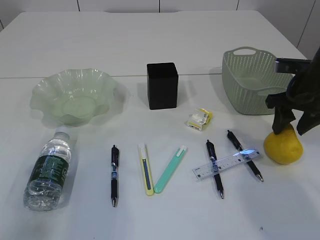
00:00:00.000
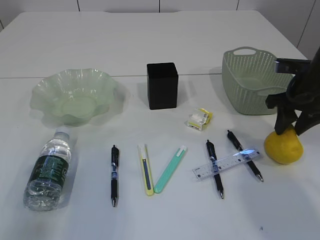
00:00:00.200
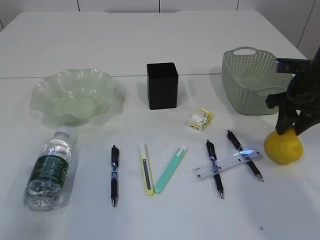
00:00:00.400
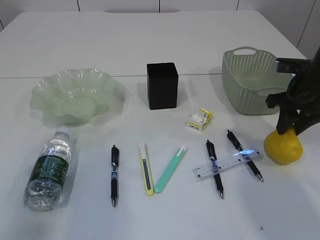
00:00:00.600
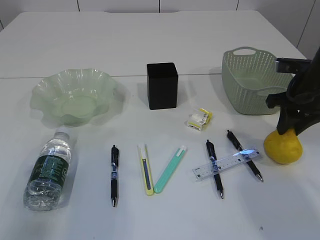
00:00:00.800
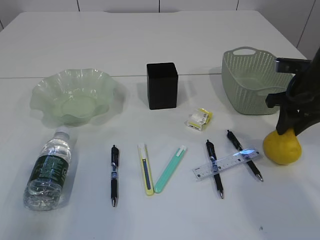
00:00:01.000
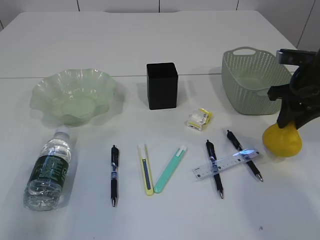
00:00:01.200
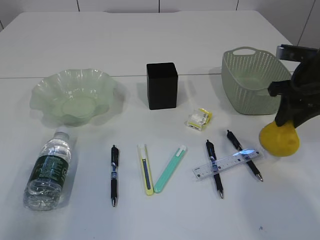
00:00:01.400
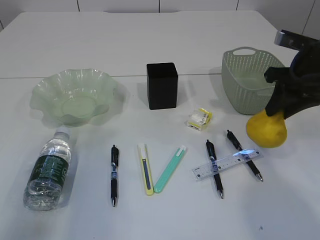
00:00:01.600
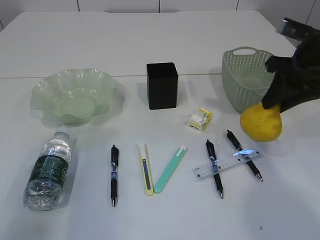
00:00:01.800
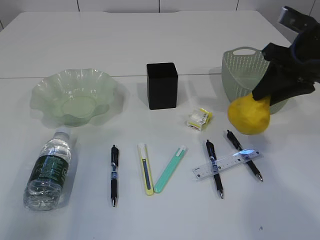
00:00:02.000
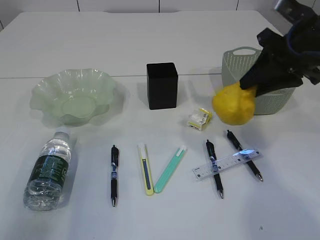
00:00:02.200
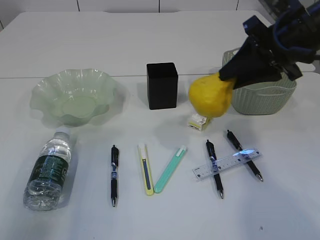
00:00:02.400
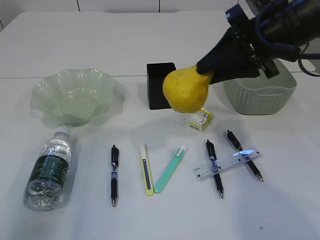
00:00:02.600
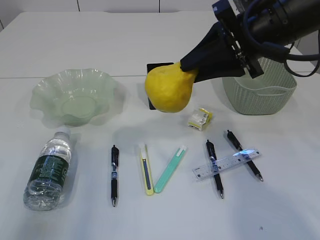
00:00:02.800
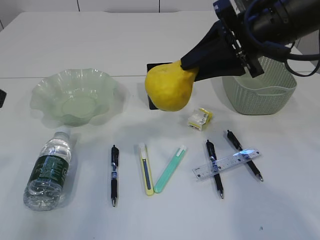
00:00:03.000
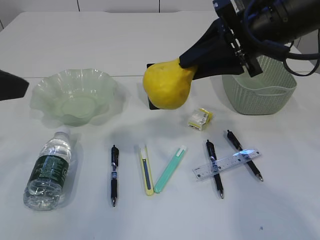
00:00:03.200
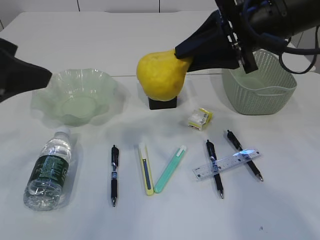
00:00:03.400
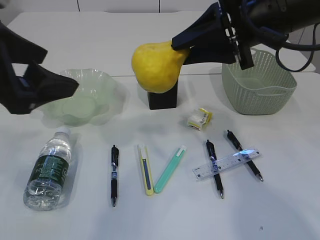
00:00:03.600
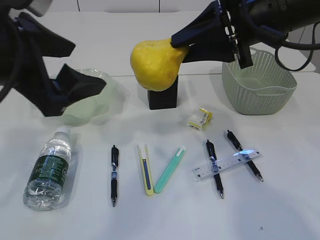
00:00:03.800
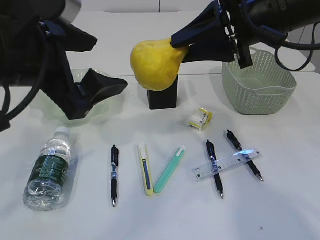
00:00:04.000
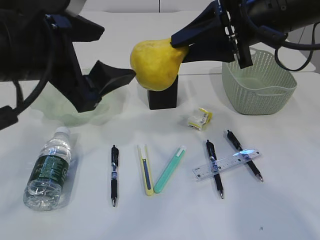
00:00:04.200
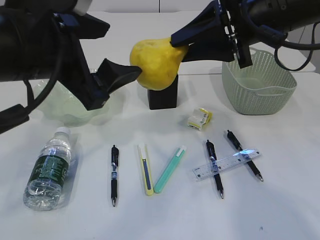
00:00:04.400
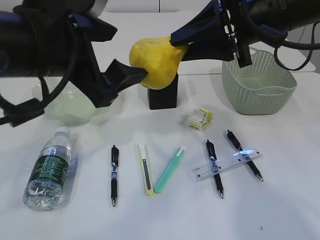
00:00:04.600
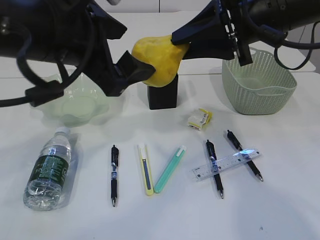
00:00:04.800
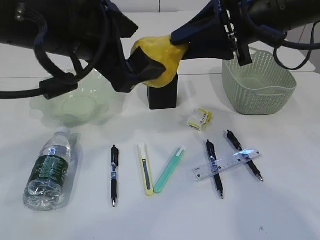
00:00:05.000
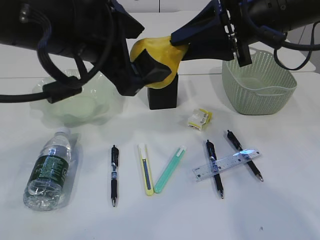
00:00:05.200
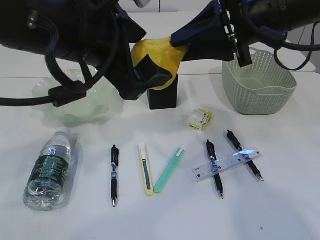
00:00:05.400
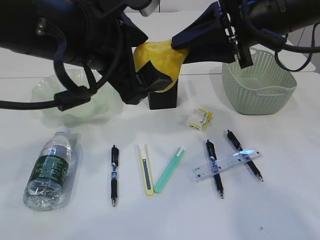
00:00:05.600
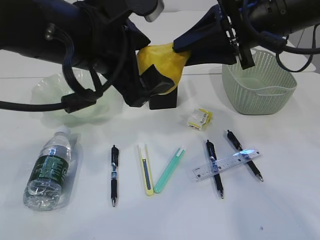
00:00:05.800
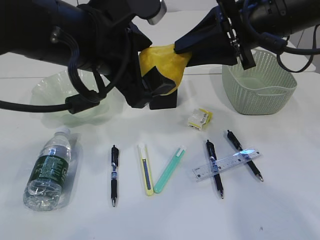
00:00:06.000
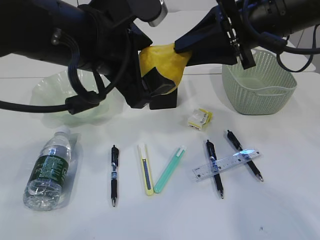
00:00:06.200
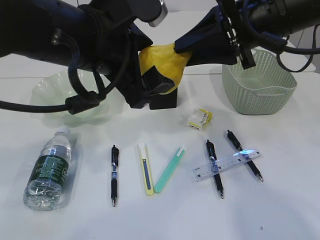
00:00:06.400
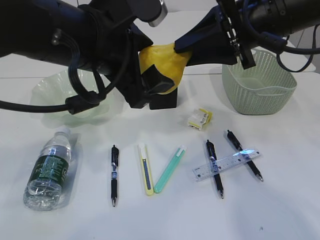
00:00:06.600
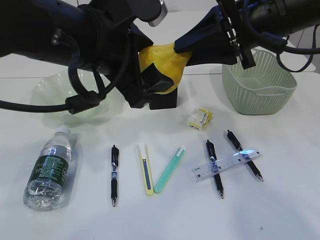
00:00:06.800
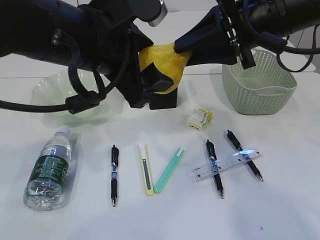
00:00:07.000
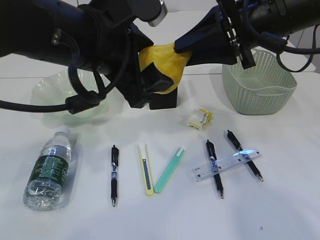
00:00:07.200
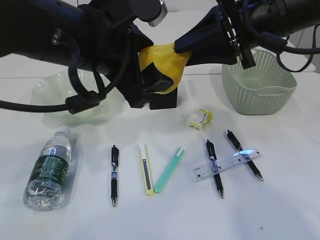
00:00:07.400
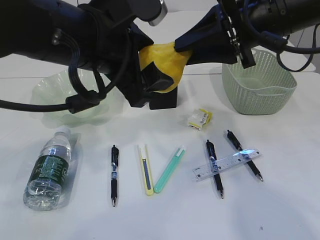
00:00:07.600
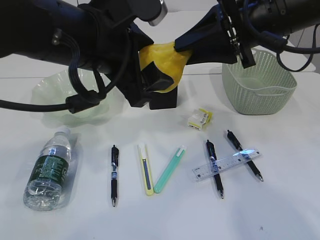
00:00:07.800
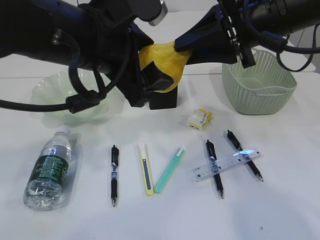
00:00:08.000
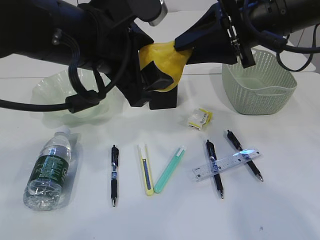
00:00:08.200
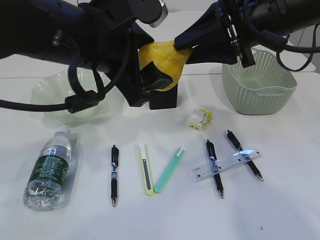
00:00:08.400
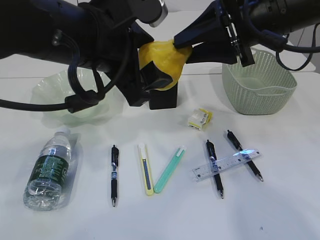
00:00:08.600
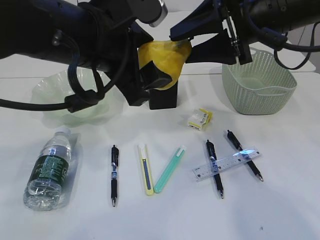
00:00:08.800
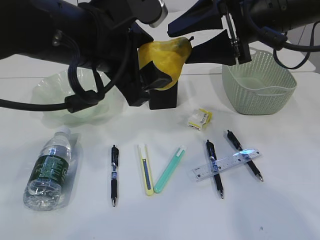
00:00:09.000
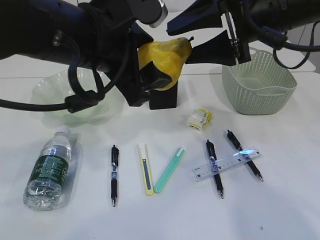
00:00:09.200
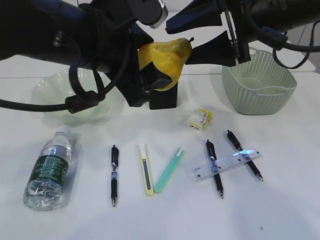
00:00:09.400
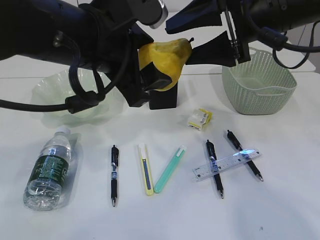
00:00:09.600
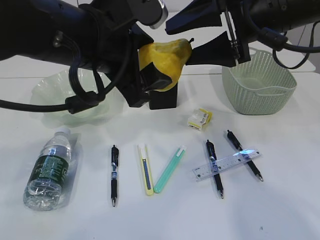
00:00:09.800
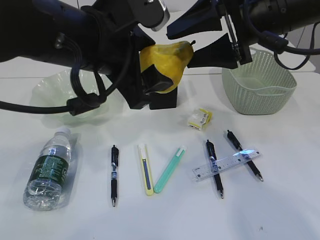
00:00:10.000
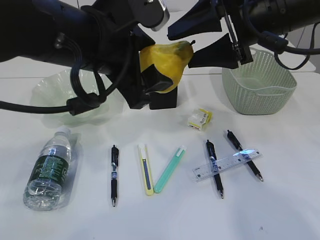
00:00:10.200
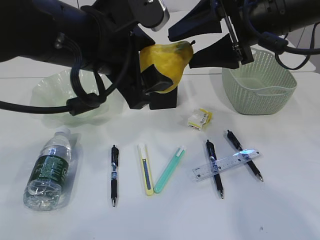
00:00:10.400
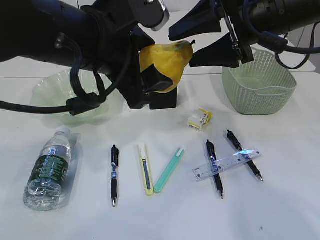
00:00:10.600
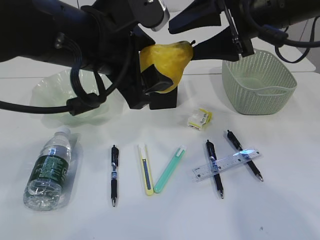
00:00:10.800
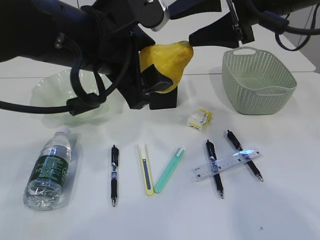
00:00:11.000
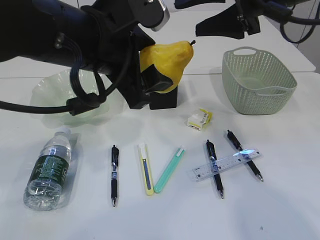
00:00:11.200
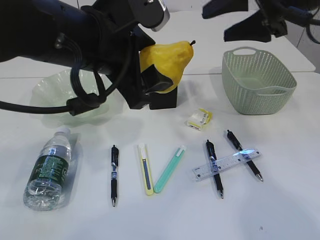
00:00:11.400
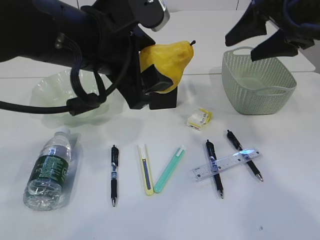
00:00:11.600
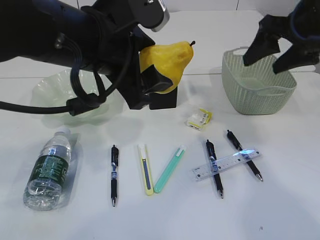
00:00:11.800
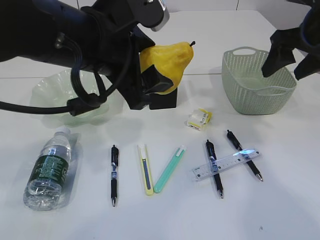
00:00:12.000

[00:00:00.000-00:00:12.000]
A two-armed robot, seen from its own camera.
Step, 00:00:02.200 to 00:00:11.800: Hand over the pear.
00:00:00.000 to 00:00:01.600: The right gripper travels upward by about 5 cm, and closes its fingers.
00:00:01.600 to 00:00:03.000: The right gripper travels to the left and upward by some 10 cm; the left gripper heads to the right, covering some 5 cm.
00:00:03.000 to 00:00:04.400: The left gripper shifts approximately 15 cm to the right.
00:00:04.400 to 00:00:06.000: The left gripper shifts about 5 cm to the right.
00:00:06.000 to 00:00:07.600: Both grippers stay put.
00:00:07.600 to 00:00:09.000: The right gripper opens up.
00:00:09.000 to 00:00:10.400: Neither gripper changes place.
00:00:10.400 to 00:00:12.000: The right gripper goes roughly 10 cm to the right.

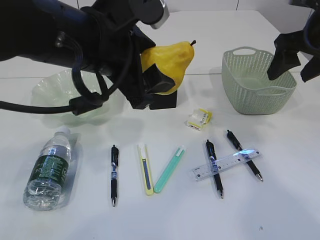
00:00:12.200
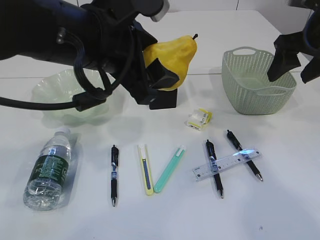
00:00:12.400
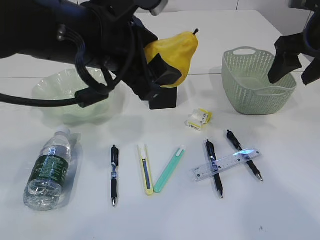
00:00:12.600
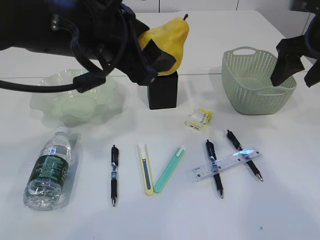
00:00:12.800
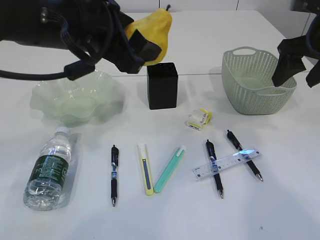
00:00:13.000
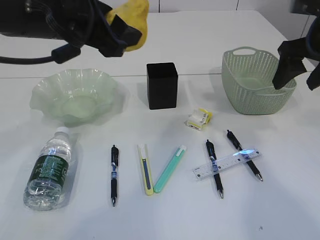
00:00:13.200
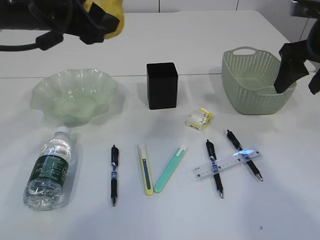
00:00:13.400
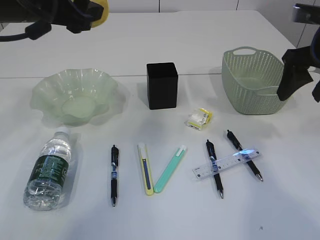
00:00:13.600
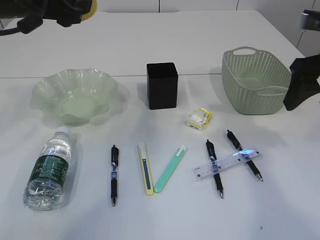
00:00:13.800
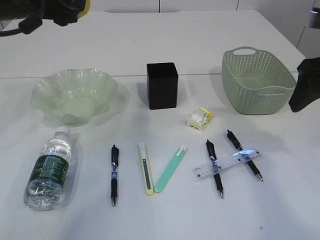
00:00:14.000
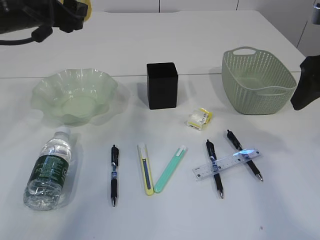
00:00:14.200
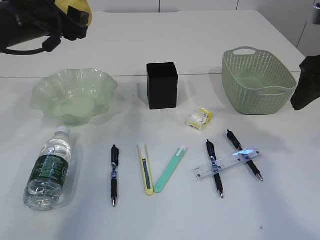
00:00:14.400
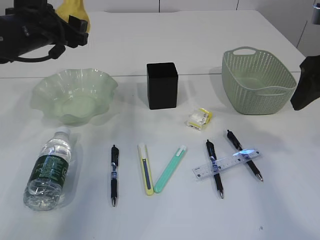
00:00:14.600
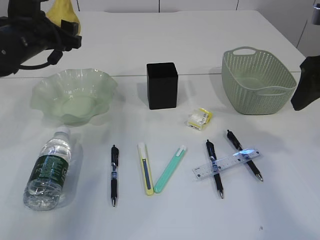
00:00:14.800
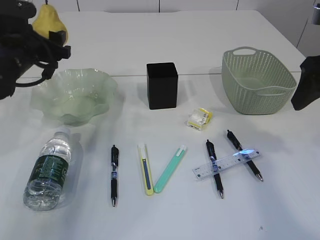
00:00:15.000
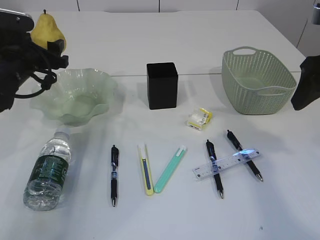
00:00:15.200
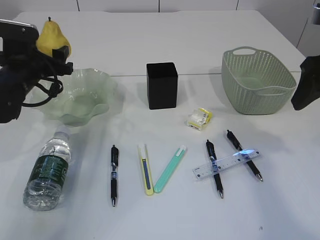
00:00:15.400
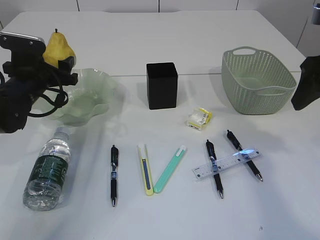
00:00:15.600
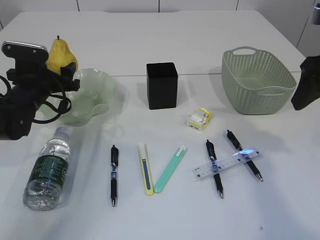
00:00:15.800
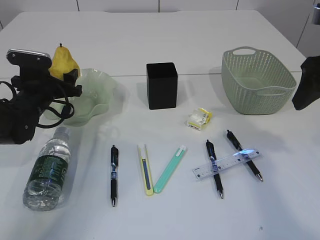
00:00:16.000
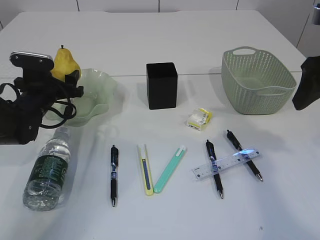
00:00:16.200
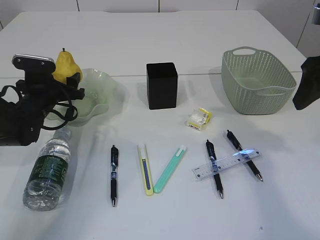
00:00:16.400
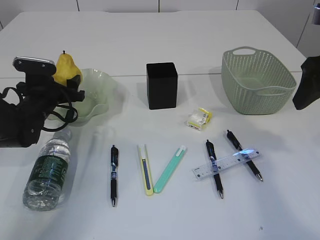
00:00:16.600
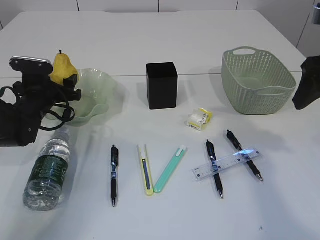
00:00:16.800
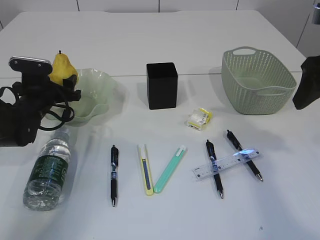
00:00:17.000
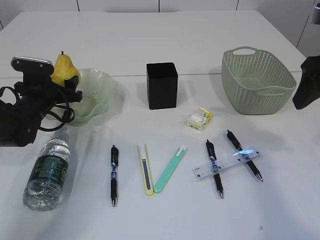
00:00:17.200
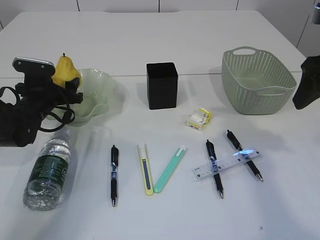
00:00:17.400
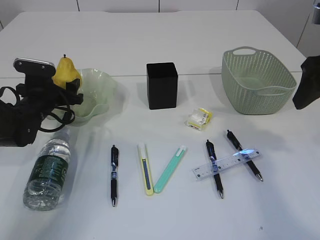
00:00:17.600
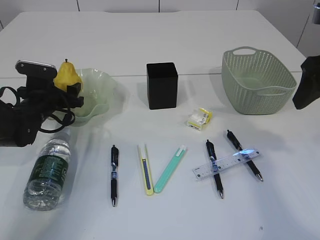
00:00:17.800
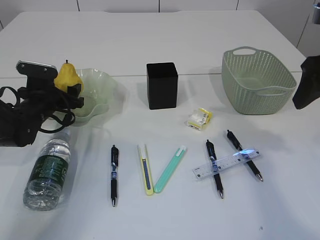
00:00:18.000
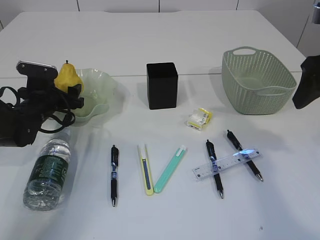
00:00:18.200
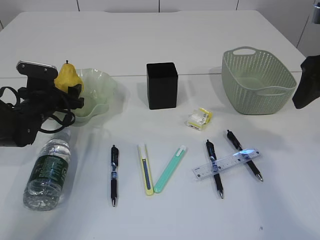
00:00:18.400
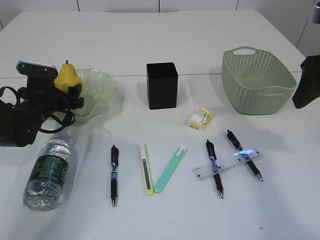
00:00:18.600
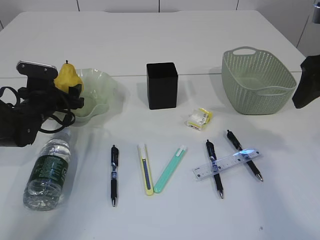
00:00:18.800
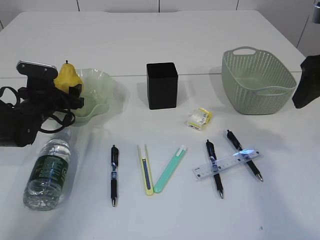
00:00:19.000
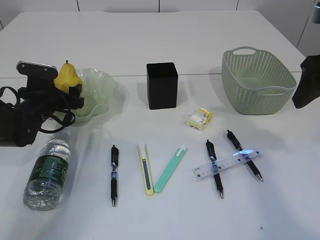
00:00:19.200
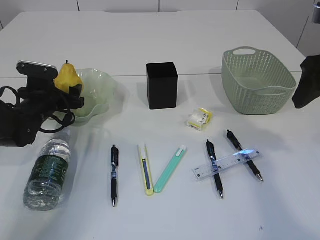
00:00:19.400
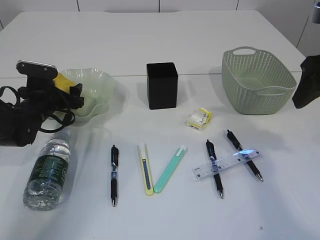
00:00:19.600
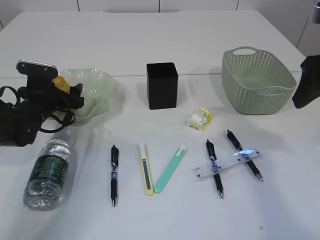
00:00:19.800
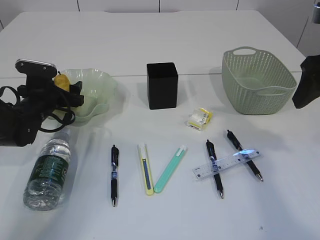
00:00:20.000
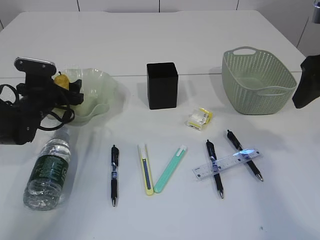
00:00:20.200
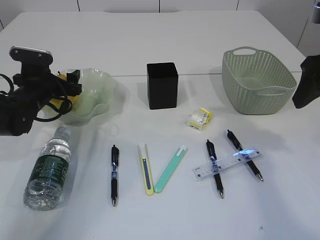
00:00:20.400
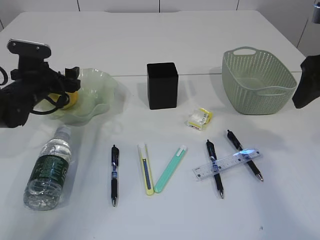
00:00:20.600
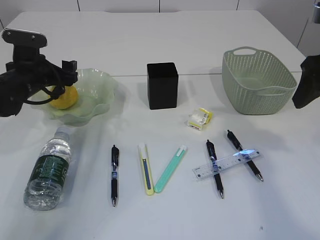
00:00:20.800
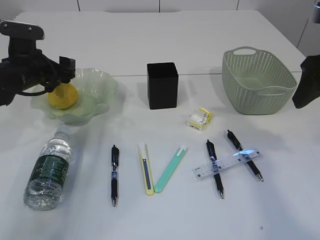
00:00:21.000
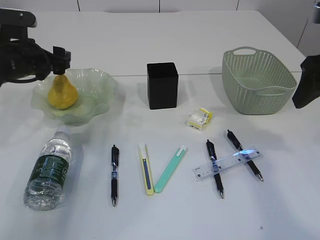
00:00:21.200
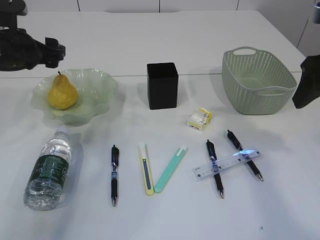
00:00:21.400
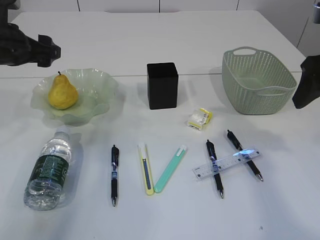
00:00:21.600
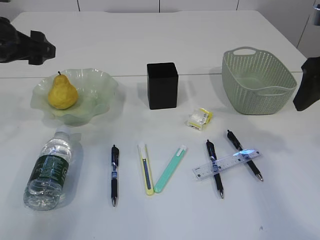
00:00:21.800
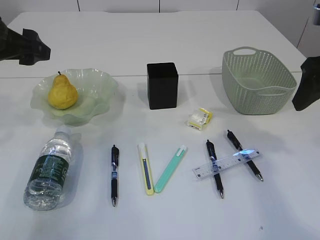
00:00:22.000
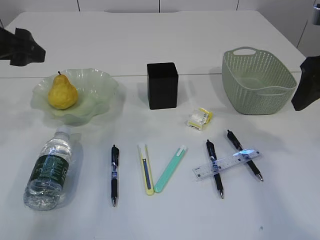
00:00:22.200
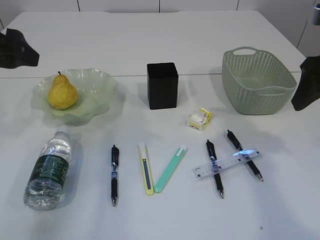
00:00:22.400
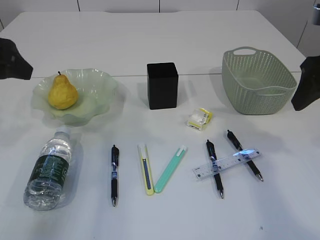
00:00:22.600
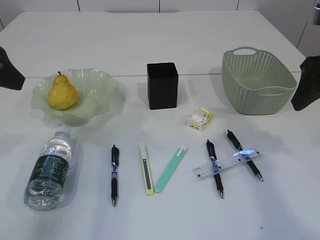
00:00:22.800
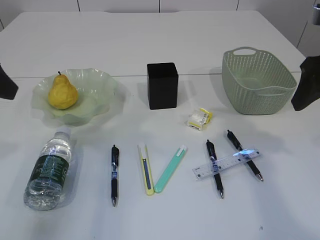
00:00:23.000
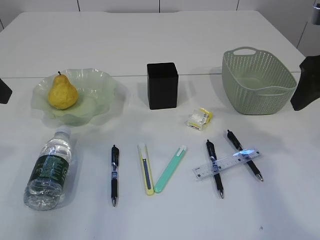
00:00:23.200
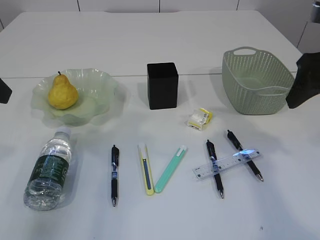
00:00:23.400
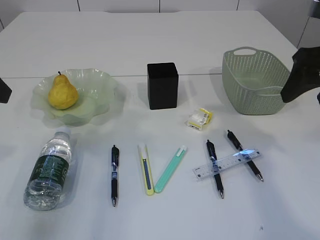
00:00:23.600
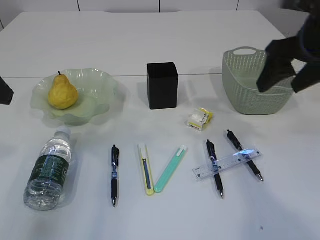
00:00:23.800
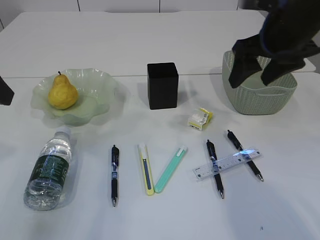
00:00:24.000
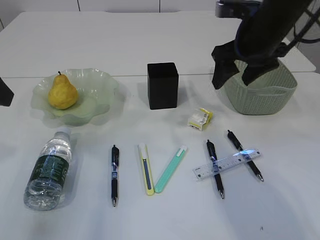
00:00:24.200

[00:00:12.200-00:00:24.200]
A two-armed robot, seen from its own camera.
Step, 00:00:12.200 to 00:00:22.200: Place the pear in the plate.
00:00:12.200 to 00:00:13.800: The left gripper is displaced to the left and forward by roughly 15 cm. The right gripper moves backward, some 5 cm.
00:00:13.800 to 00:00:15.200: The left gripper heads downward and to the left, covering some 15 cm.
00:00:15.200 to 00:00:16.600: The left gripper moves downward, roughly 10 cm.
00:00:16.600 to 00:00:18.200: The grippers make only small movements.
00:00:18.200 to 00:00:19.800: Neither gripper changes place.
00:00:19.800 to 00:00:21.200: The left gripper shifts approximately 10 cm upward.
00:00:21.200 to 00:00:22.600: The left gripper heads backward and upward, covering about 15 cm.
00:00:22.600 to 00:00:24.200: The right gripper is displaced forward and to the left by about 15 cm.
